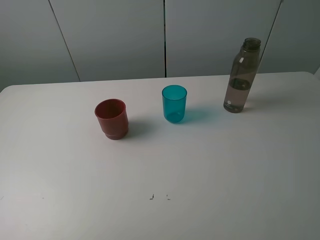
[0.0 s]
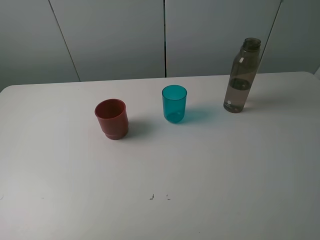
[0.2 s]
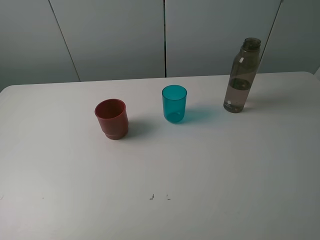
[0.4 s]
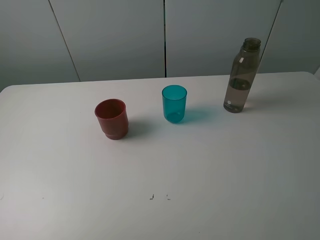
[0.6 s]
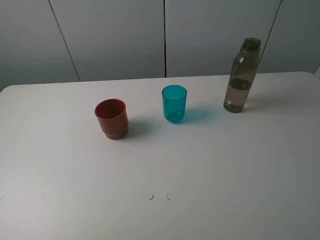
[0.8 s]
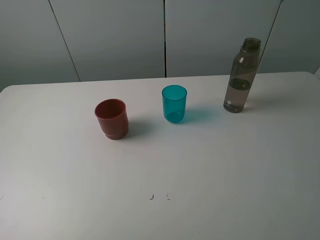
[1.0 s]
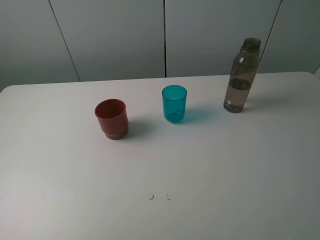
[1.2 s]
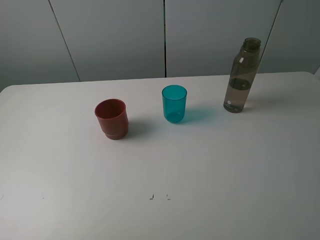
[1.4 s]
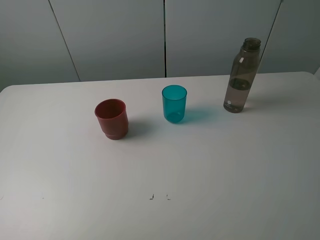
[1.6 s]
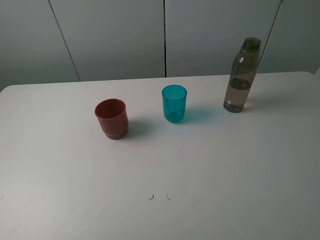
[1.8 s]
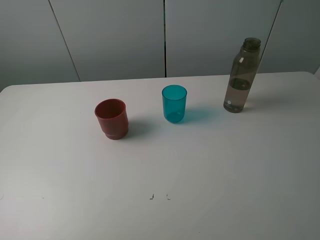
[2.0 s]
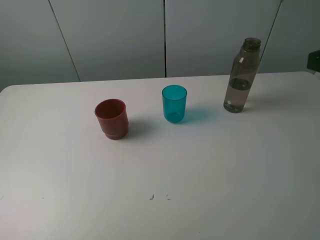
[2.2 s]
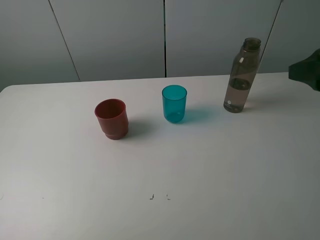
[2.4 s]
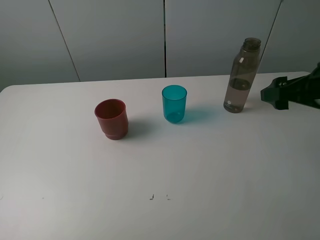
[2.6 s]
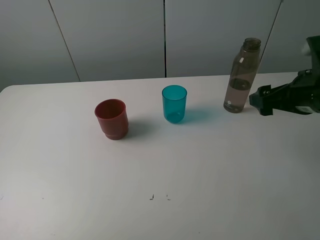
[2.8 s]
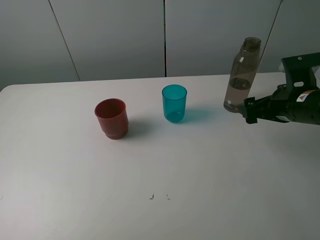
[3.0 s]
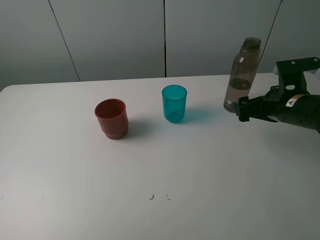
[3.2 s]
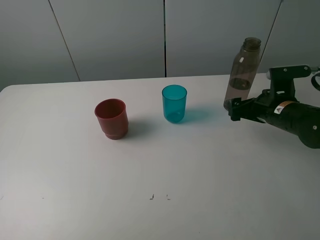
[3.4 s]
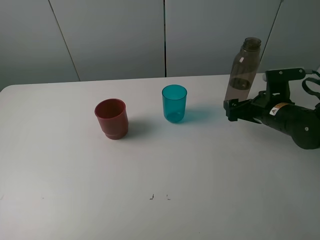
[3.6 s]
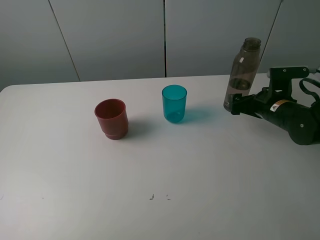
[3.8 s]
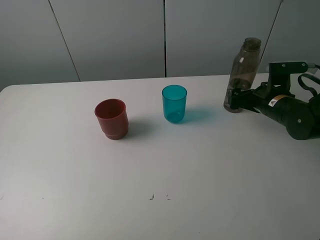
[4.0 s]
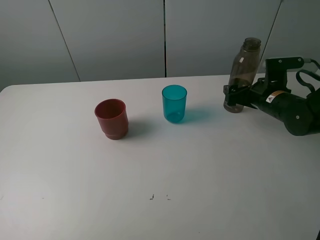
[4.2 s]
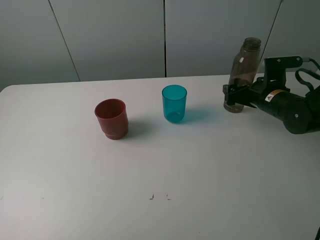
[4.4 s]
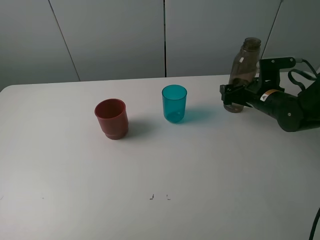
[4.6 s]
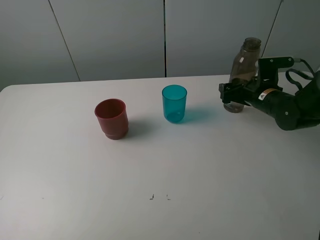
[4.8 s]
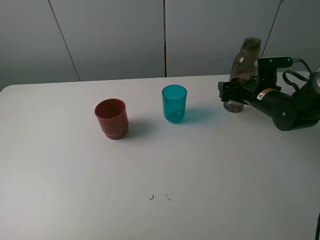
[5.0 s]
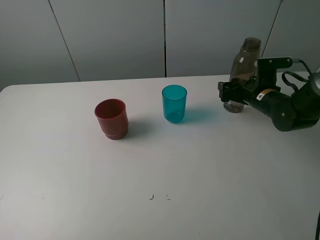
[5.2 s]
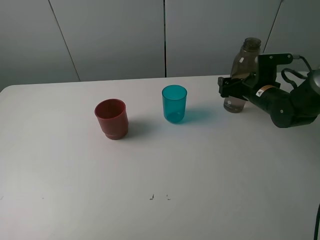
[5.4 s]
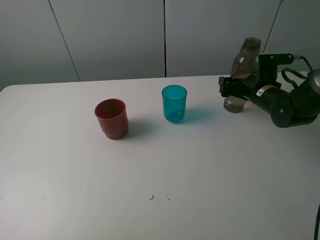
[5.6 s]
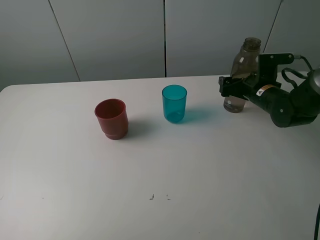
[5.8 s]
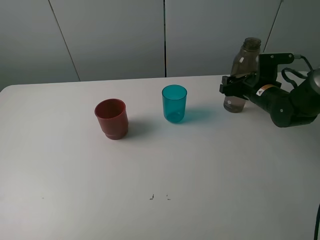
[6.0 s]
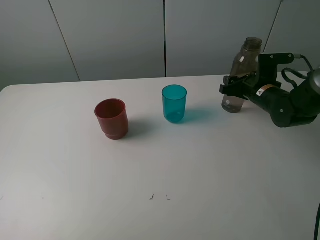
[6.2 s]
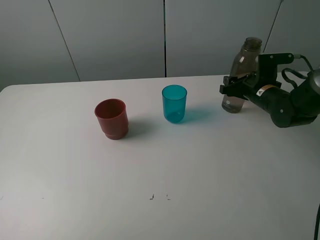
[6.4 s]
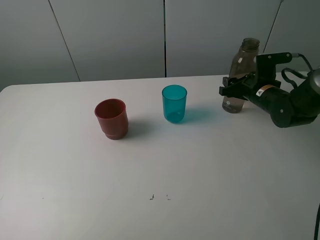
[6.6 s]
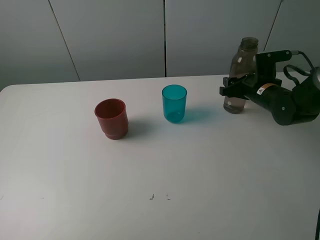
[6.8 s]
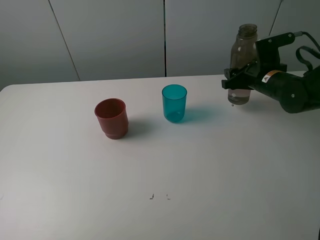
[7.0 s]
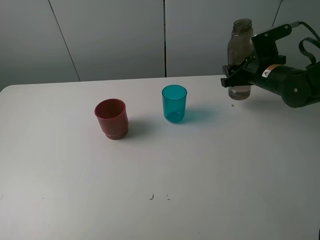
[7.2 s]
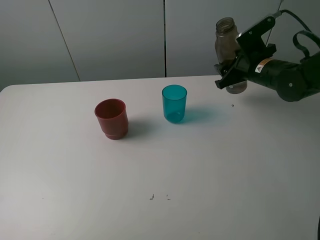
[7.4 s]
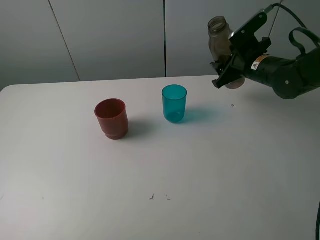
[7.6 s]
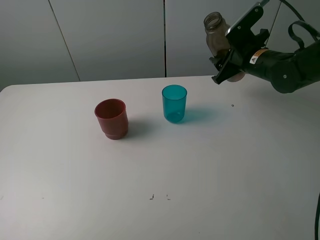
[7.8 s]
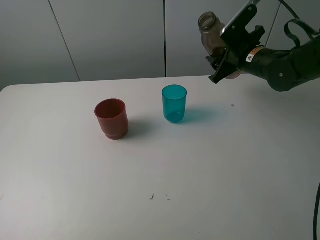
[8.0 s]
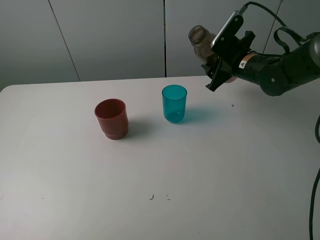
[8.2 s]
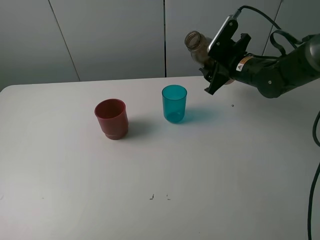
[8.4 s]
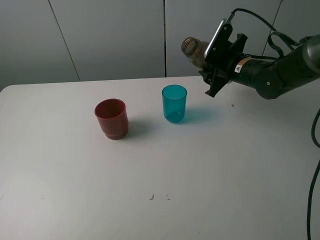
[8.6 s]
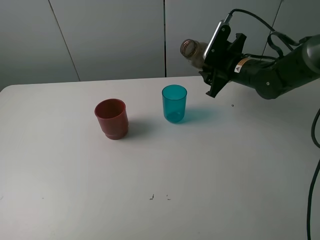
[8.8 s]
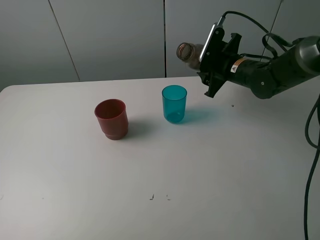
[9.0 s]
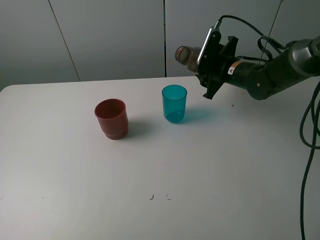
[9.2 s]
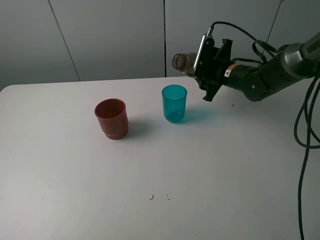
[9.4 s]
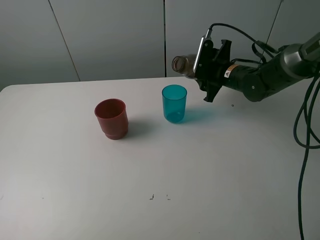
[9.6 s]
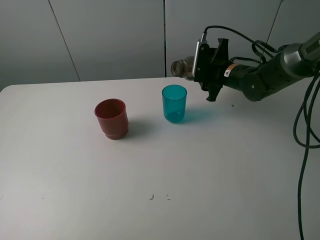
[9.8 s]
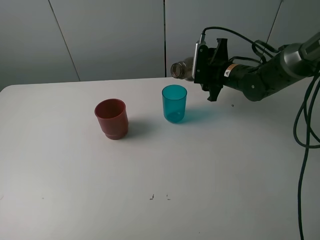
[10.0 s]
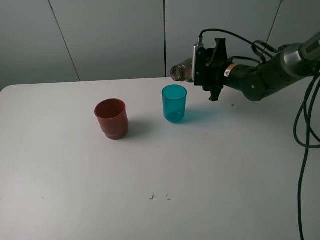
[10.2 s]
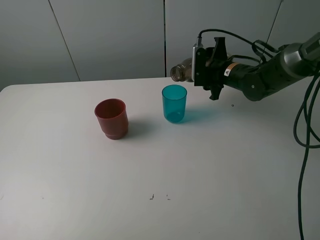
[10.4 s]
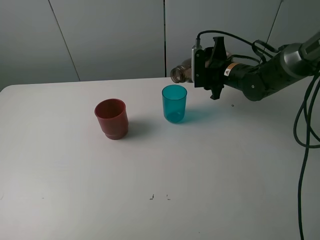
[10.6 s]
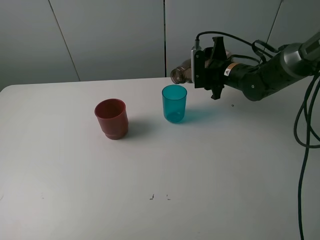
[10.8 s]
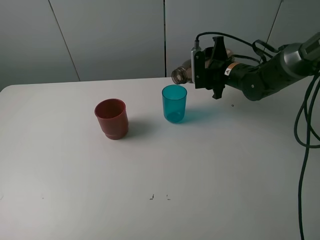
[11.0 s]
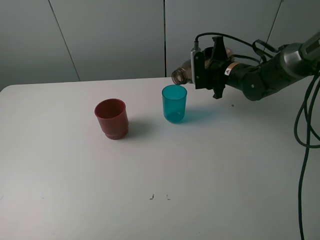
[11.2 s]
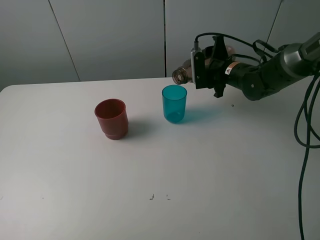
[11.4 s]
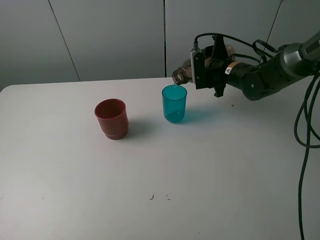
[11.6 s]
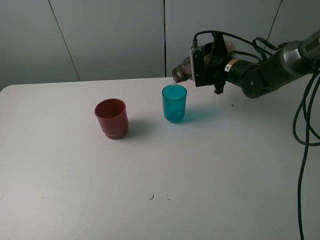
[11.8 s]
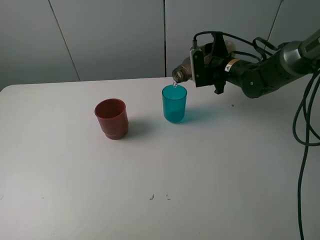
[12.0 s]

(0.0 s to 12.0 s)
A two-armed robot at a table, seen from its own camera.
Task of the whole recording: pick up the bottle and pour water into the cup, then pick up the cup containing water and pour it into another cup.
Step, 0.0 s - 6.2 s: Grasp the brown bottle with the right gripper.
0.0 s - 1.6 s: Both grippers stay about where they are.
1.6 s - 3.0 s: The right gripper goes some 30 cm forward and downward.
3.0 s - 4.4 s: The right gripper is displaced forward and downward by about 10 cm.
4.4 s - 6.0 s: The right gripper closes up.
6.0 s - 7.6 s: The right gripper heads upward, covering some 5 cm.
10.4 s - 12.0 s: The grippers stay close to where they were, moving slightly.

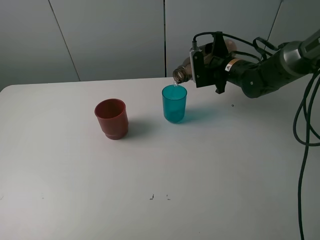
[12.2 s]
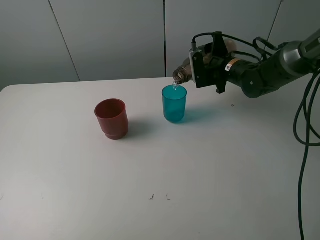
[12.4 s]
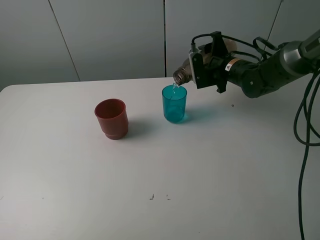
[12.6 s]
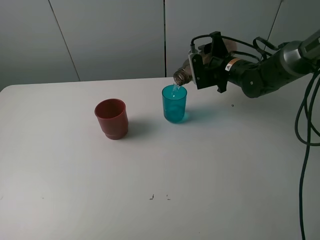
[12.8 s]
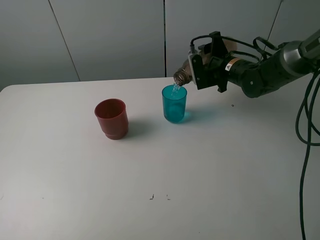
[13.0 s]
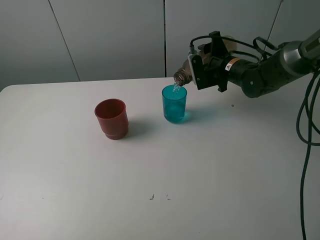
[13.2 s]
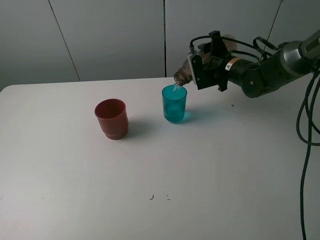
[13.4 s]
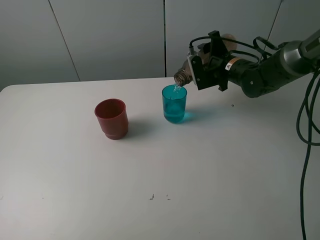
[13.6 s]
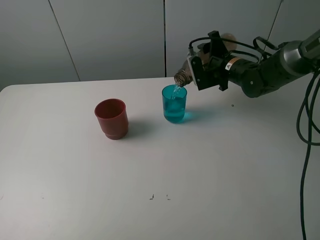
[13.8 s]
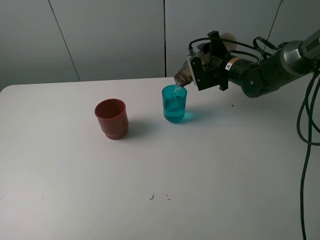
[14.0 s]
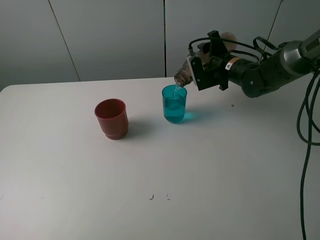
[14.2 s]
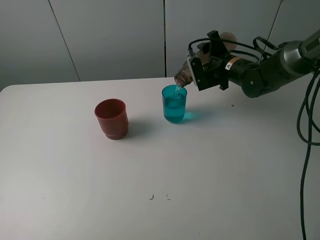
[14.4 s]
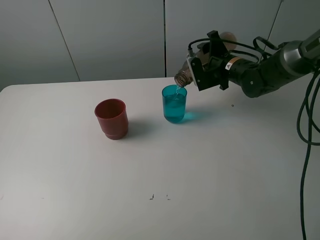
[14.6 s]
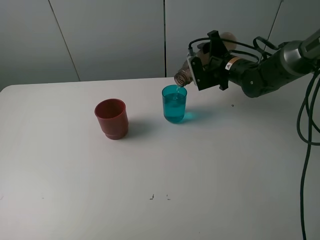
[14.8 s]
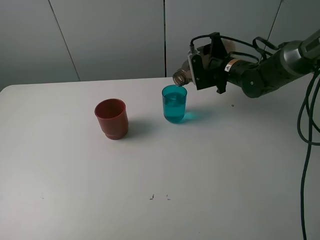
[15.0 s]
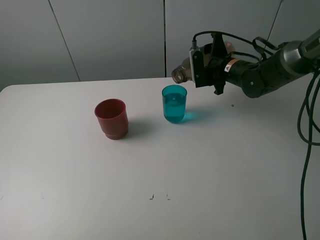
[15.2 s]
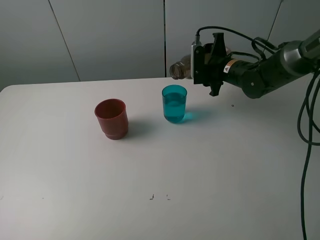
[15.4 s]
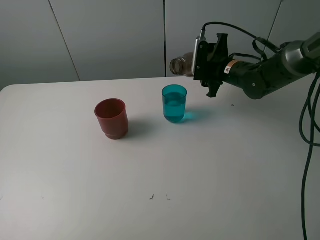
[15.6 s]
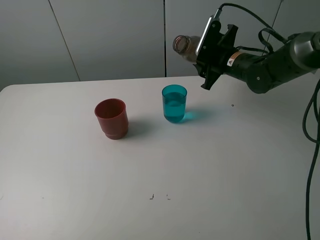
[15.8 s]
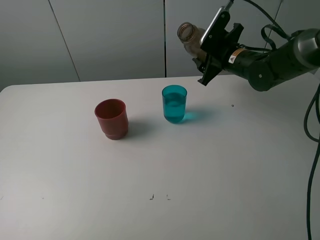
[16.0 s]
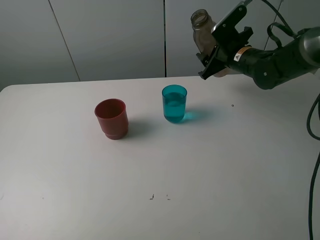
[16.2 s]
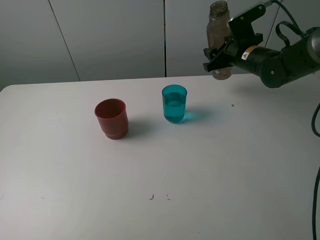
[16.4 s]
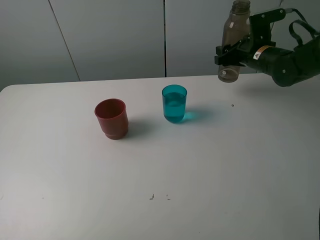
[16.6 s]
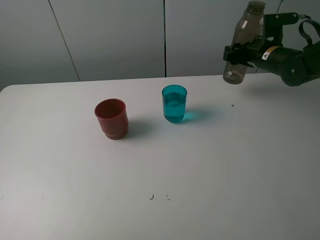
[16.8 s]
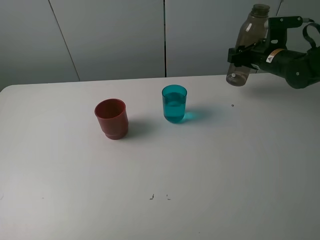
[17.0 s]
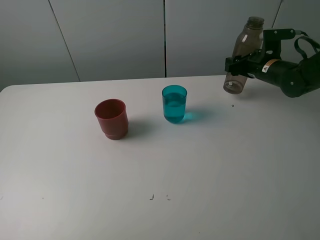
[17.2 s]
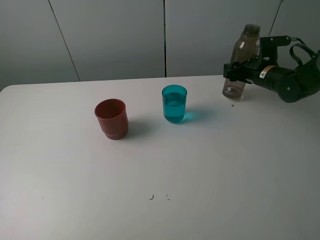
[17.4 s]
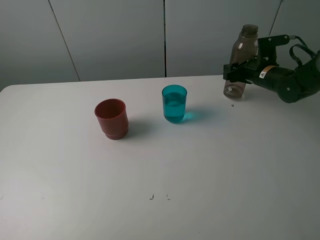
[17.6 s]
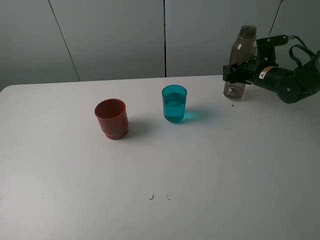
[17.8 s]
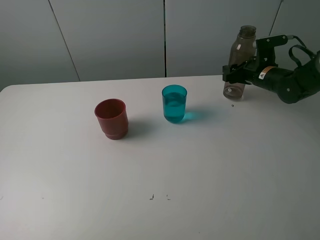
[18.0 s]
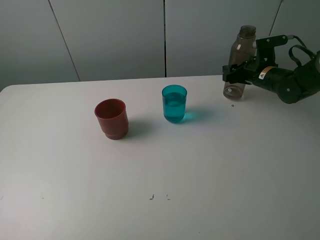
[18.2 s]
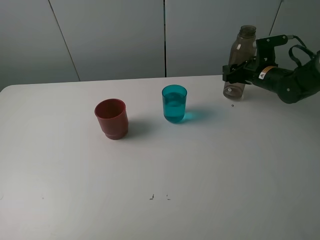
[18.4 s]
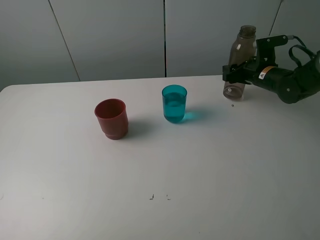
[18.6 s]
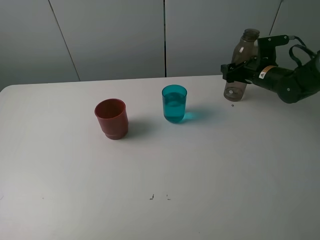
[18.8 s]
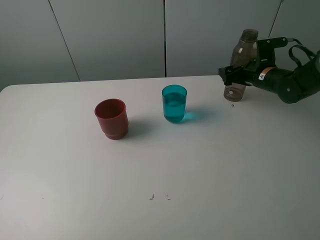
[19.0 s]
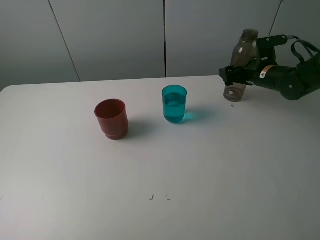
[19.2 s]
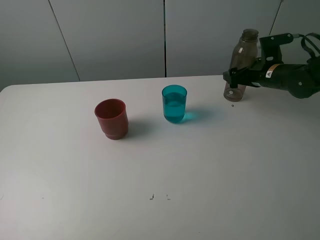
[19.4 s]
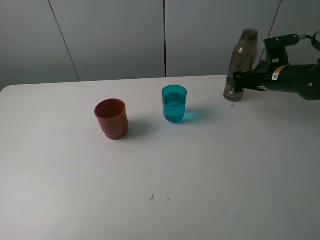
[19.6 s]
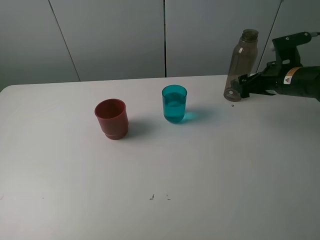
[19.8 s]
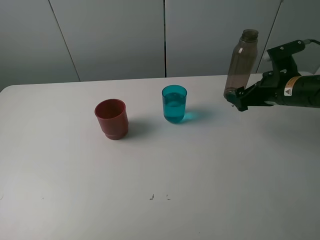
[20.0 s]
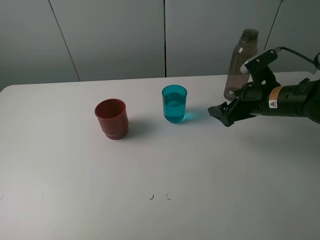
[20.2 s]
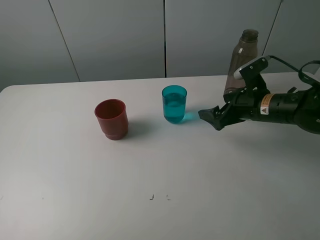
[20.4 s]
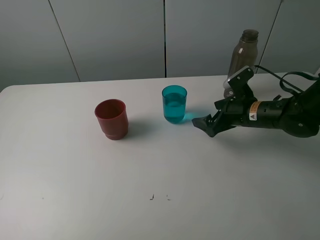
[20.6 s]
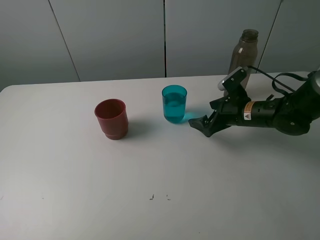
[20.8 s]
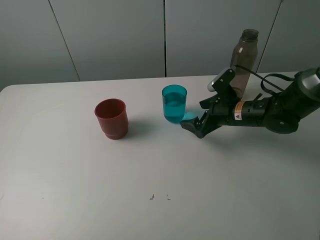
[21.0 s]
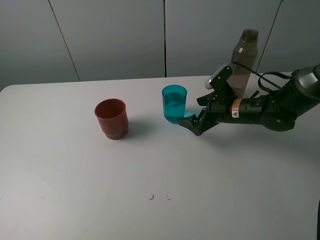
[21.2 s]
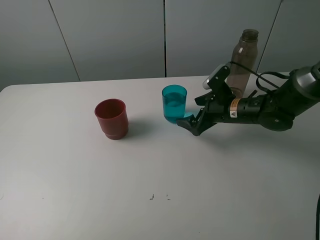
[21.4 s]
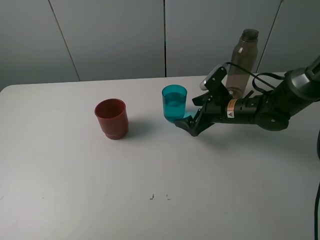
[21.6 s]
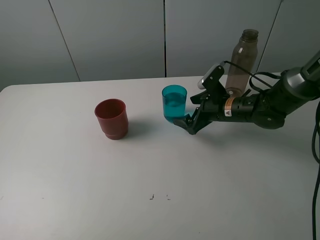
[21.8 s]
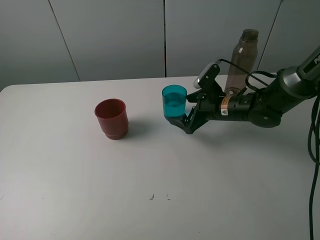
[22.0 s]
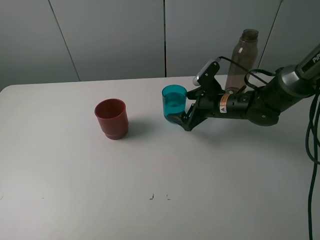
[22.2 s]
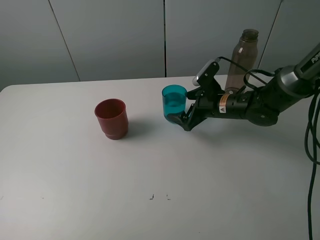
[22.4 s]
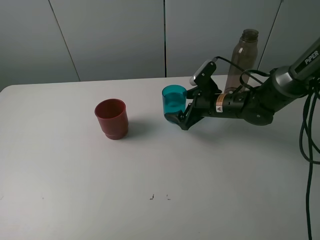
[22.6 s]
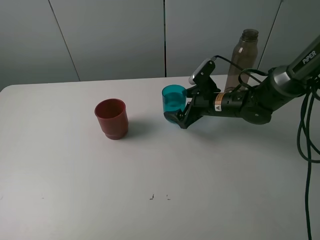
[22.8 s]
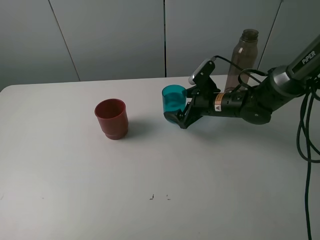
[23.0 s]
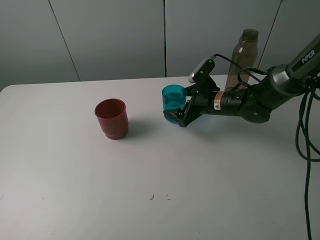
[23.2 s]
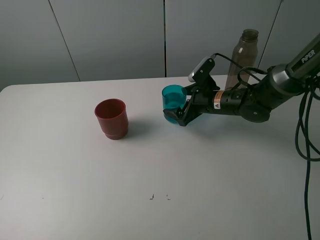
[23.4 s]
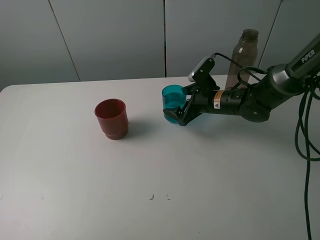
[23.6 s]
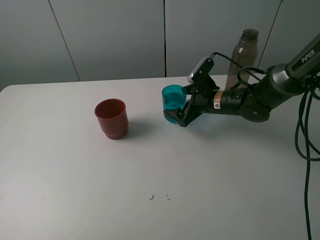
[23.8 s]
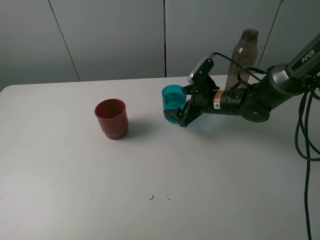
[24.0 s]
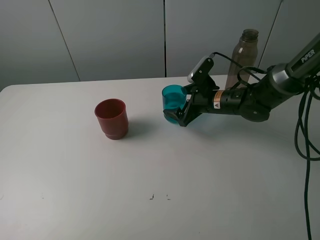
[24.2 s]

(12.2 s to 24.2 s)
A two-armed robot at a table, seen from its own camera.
Task of the whole recording: pick up the bottle and pour water into the cup, then pick up the cup containing water and pour it into another cup.
Step, 12.2 s - 15.2 s: Pour water from brown bottle to blue cup with the right gripper.
Step, 15.4 s - 19.4 s: Place the brown bottle with the right gripper.
12.2 s - 15.2 s: There are only small adjustments of the grippers.
15.2 s - 16.6 s: The right gripper heads to the right, covering roughly 5 cm.
16.6 s - 18.2 s: The right gripper heads downward, covering approximately 5 cm.
18.2 s - 19.8 s: The right gripper shifts roughly 10 cm backward, and opens its fingers.
19.8 s - 21.2 s: The right gripper moves to the left and downward, approximately 10 cm.
21.2 s - 22.6 s: The grippers make only small movements.
22.6 s - 24.2 s: The two grippers keep their place.
